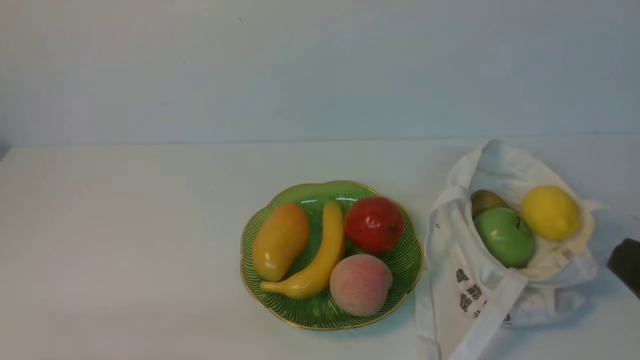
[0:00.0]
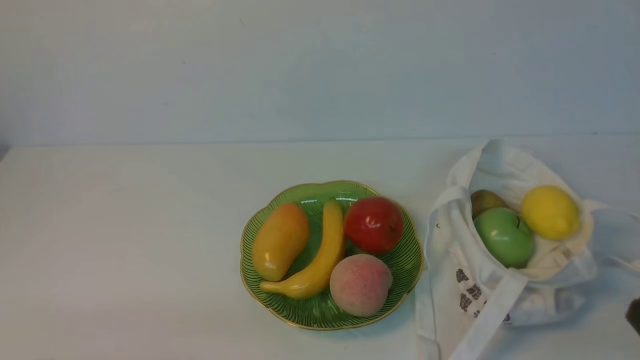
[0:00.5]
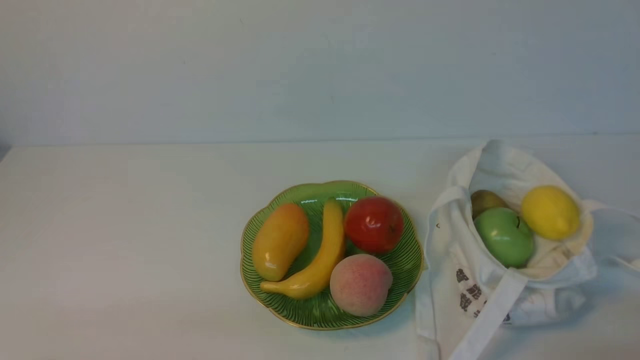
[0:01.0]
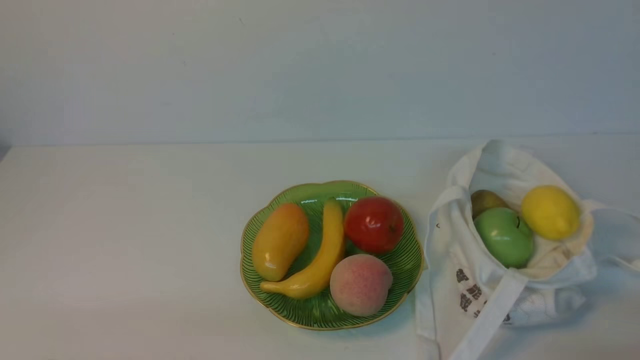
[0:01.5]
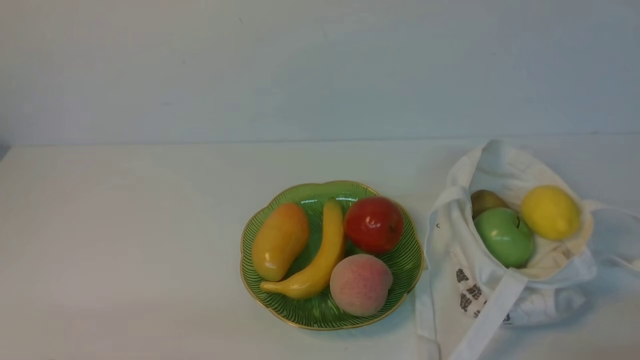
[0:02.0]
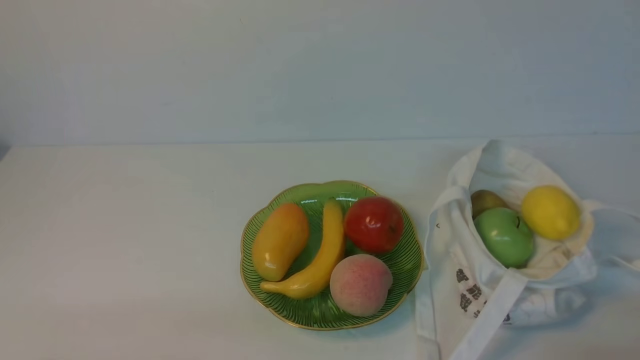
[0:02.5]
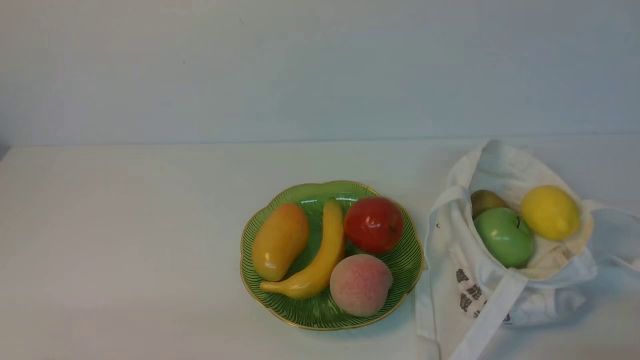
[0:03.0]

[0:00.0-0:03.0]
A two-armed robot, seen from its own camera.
0:01.5 to 0:03.0: Both grippers stay about where they are.
